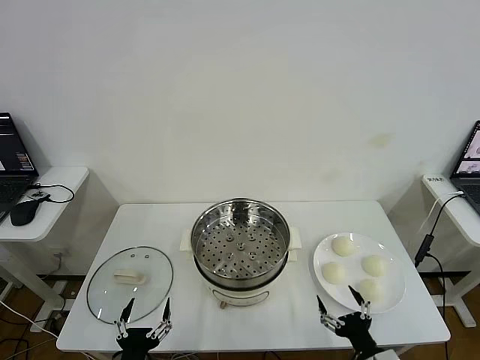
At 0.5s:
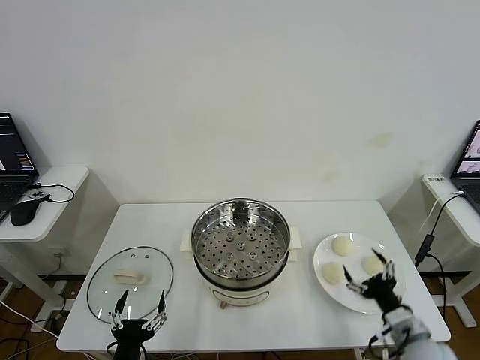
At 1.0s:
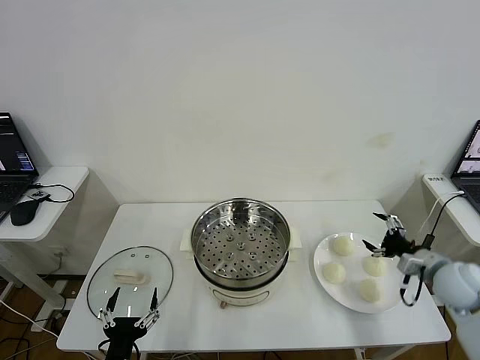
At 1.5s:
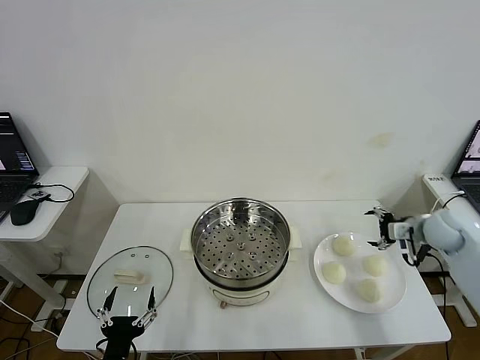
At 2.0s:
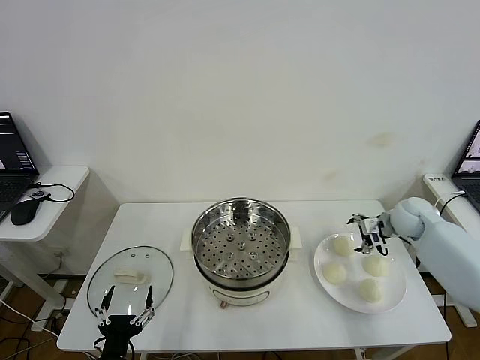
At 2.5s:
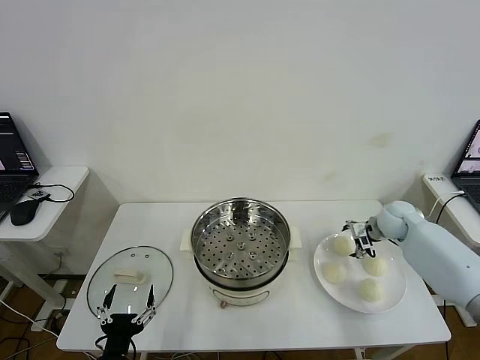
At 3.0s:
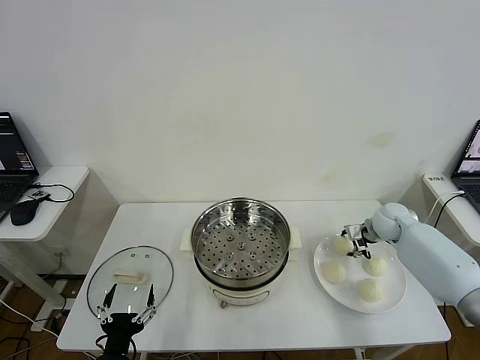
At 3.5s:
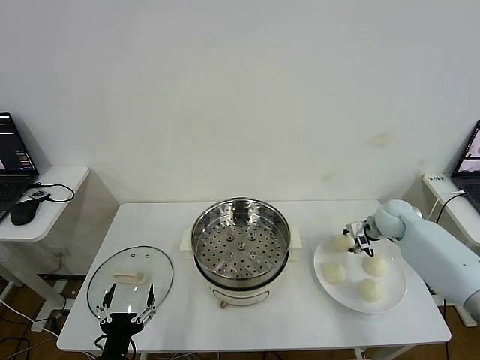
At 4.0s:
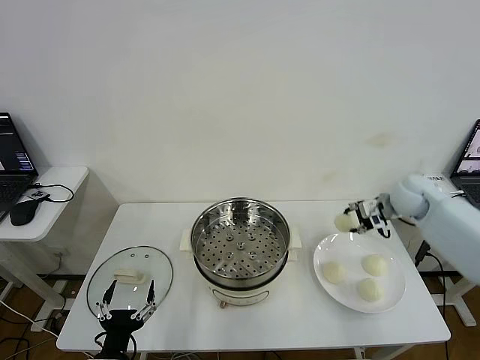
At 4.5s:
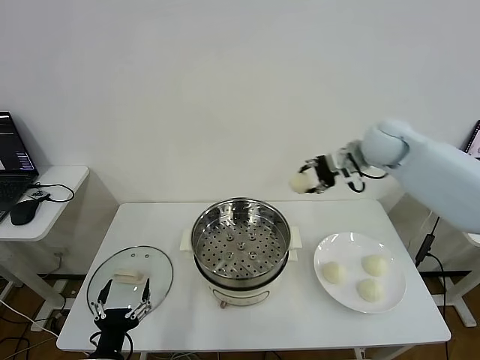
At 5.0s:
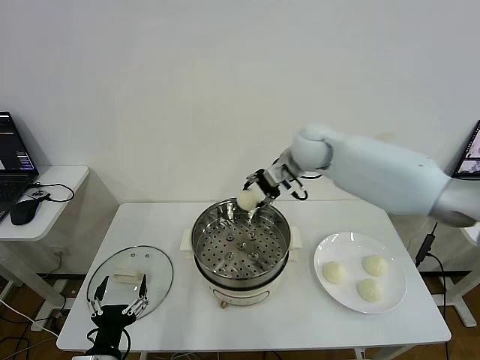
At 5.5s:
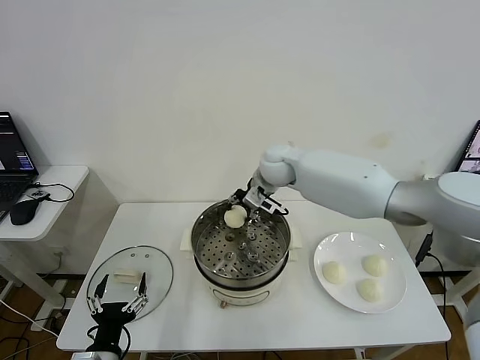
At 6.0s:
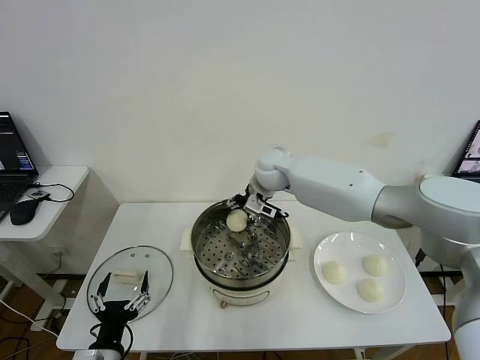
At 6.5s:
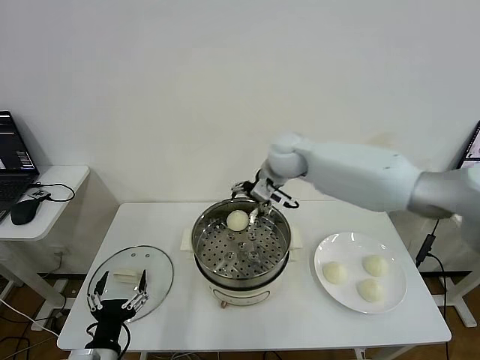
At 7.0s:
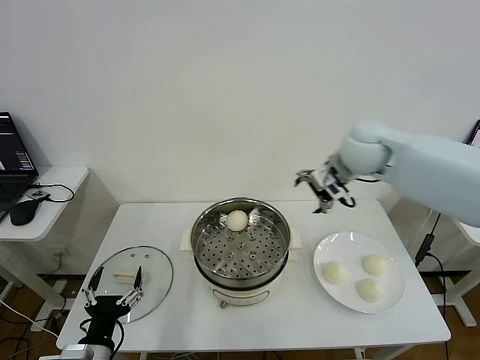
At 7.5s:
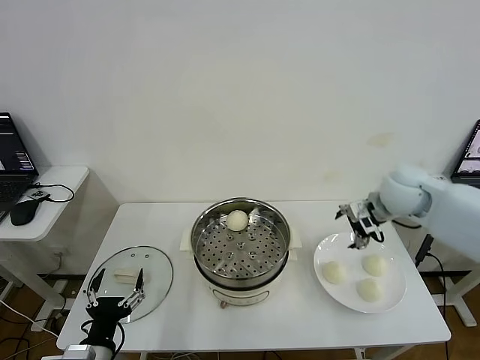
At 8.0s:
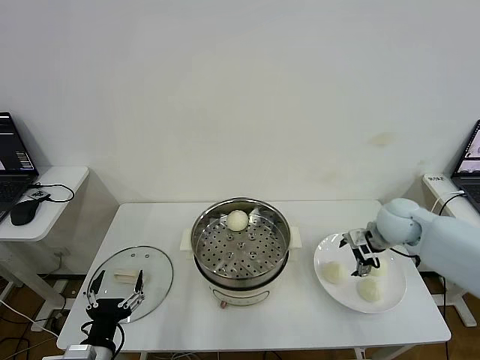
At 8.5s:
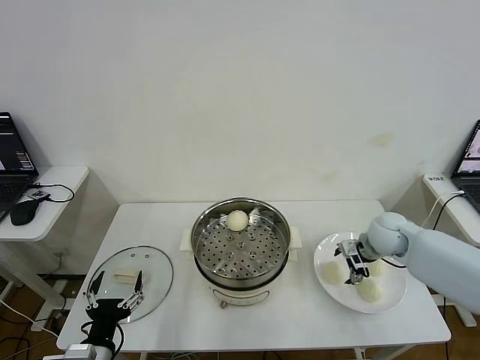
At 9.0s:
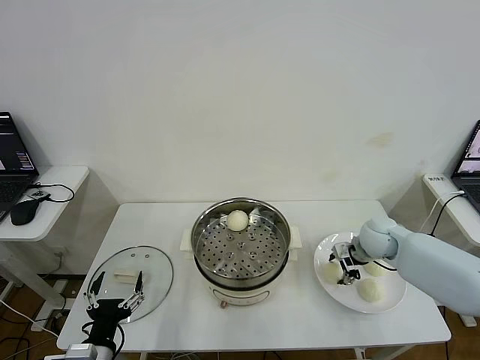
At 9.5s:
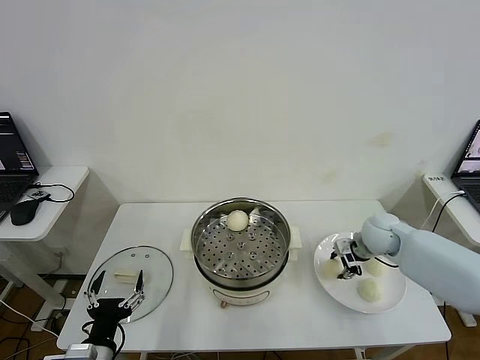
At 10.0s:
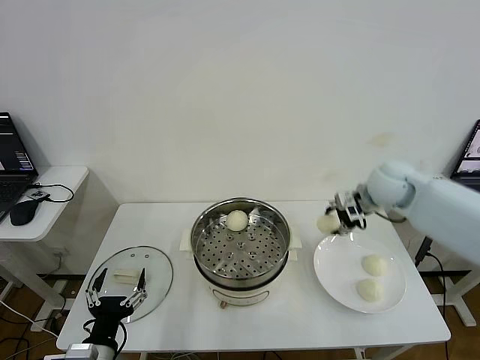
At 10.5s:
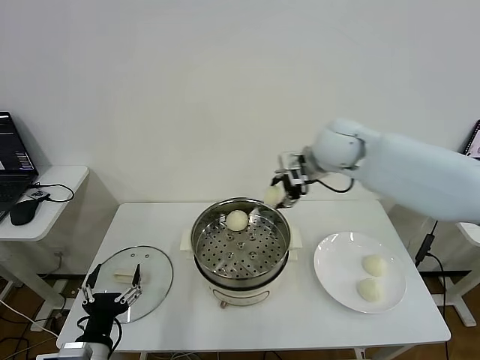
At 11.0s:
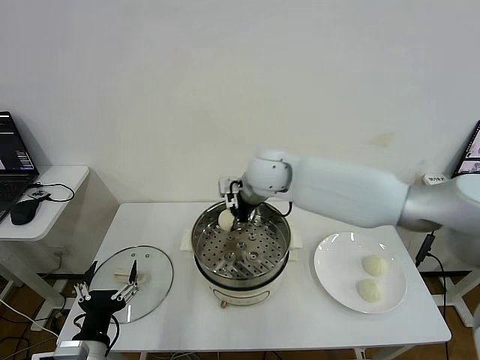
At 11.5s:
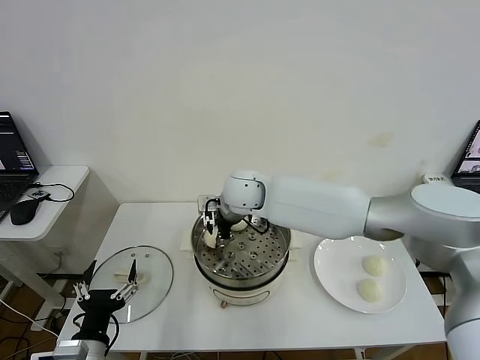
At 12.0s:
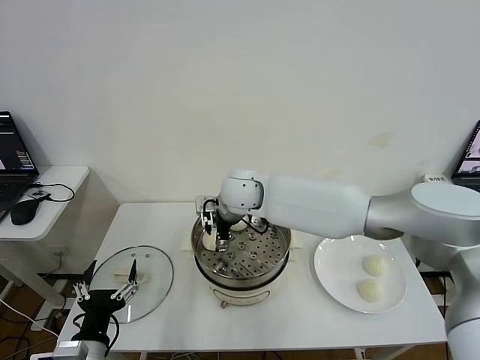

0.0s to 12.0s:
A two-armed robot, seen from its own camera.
Step, 0.0s to 3.0s: Grasp the baozi in the plate with right gripper.
Step, 3.5s to 6.0s: Place the baozi on the steamer with right gripper.
Step, 6.5s to 9.0s: Grasp the baozi in the plate with right gripper.
Step, 9.5s to 12.0s: Place the baozi on the steamer with right gripper.
2.0s to 4.0s: The right gripper moves upward, roughly 10 cm, and closes up.
4.0s to 6.0s: The right gripper moves to the left, approximately 30 cm, and opens.
6.0s to 8.0s: The right gripper travels to the right and backward by some 30 cm, and opens its fingers.
8.0s to 10.0s: The right gripper is displaced upward by roughly 10 cm, and closes its fingers.
10.0s to 12.0s: The right gripper heads to the left, covering some 30 cm, and opens up.

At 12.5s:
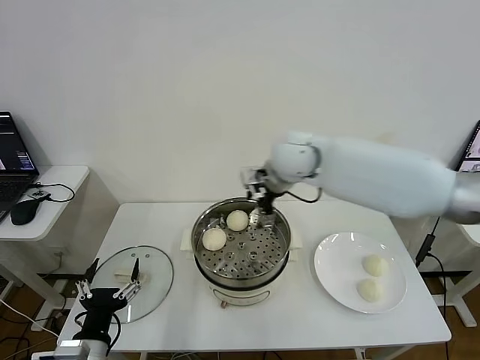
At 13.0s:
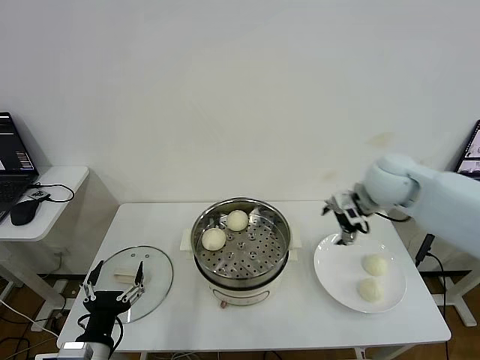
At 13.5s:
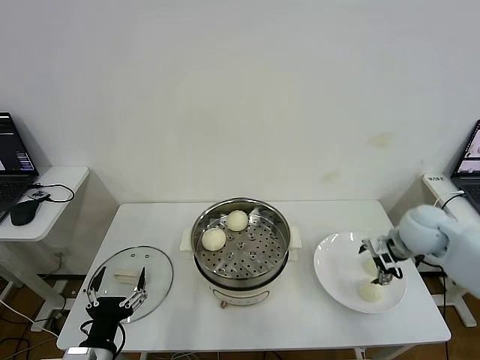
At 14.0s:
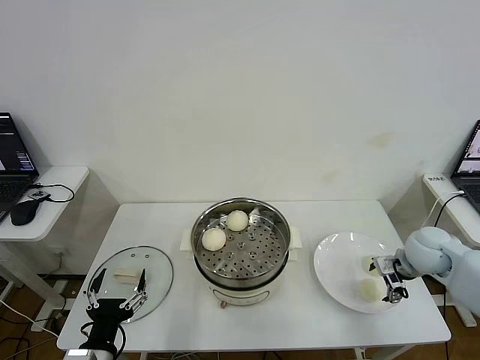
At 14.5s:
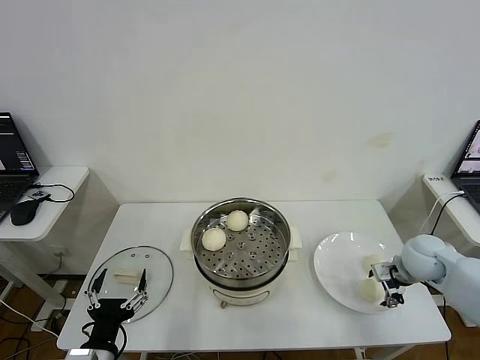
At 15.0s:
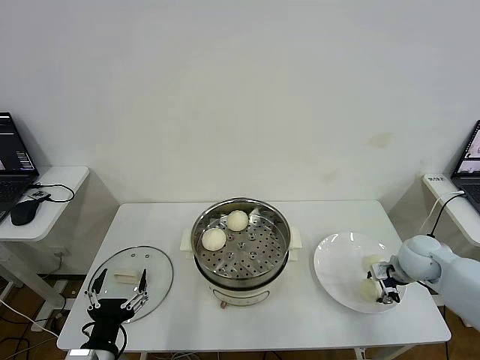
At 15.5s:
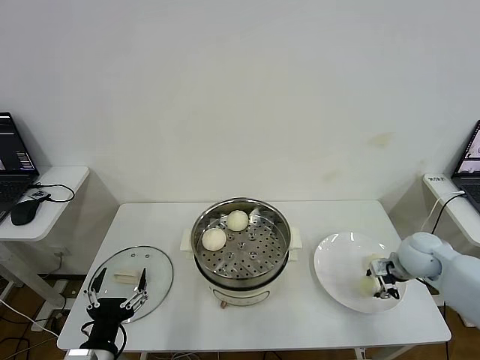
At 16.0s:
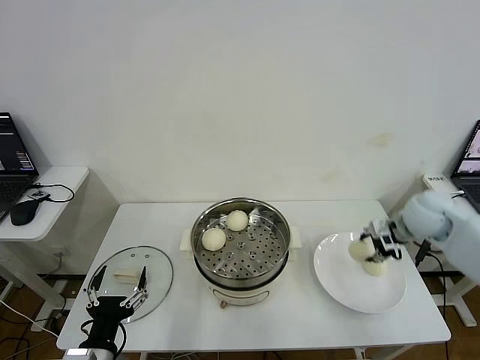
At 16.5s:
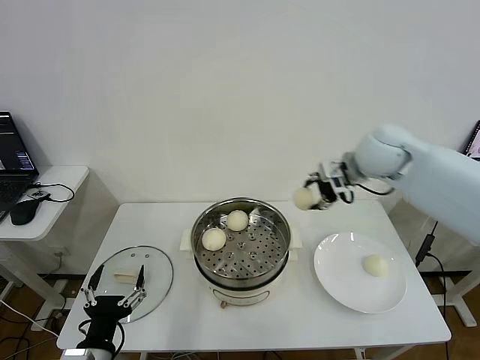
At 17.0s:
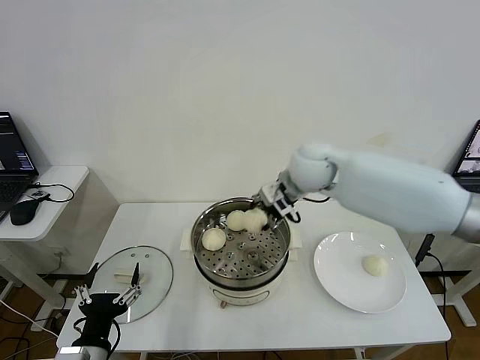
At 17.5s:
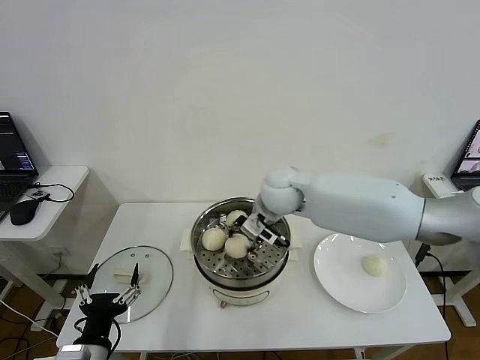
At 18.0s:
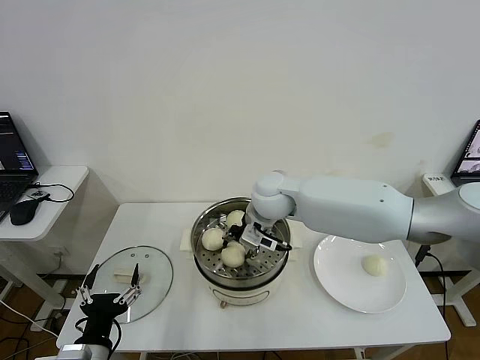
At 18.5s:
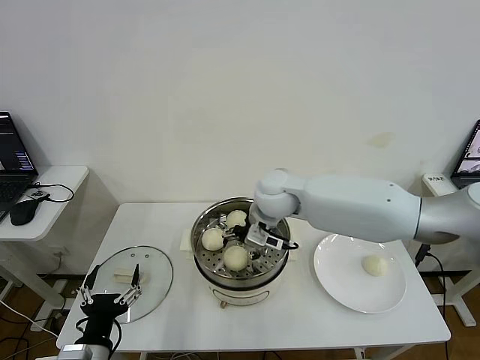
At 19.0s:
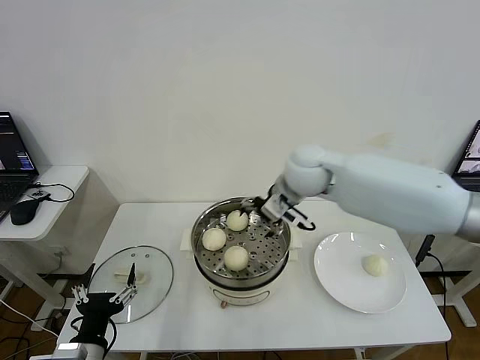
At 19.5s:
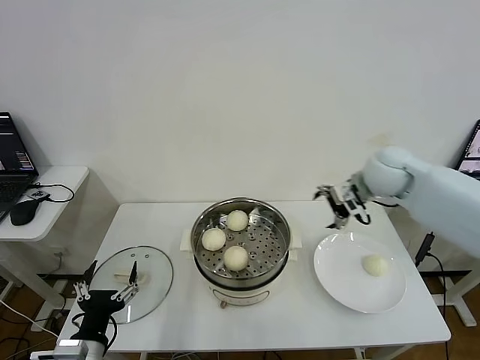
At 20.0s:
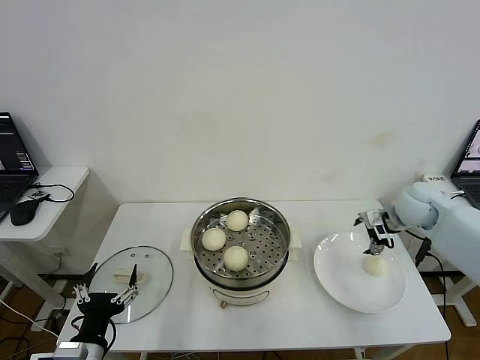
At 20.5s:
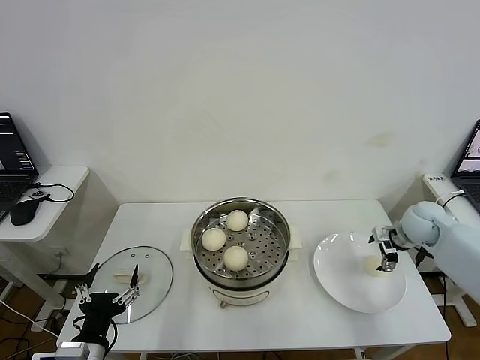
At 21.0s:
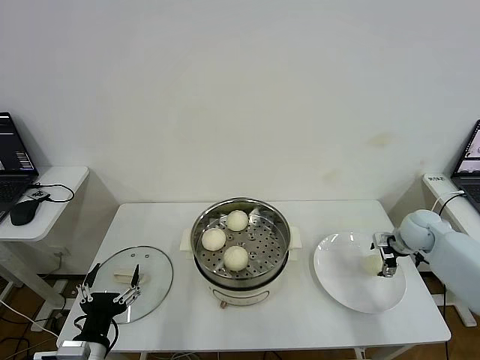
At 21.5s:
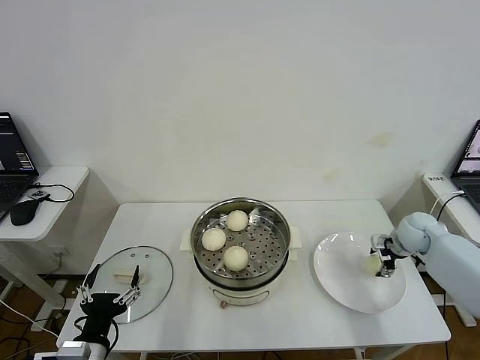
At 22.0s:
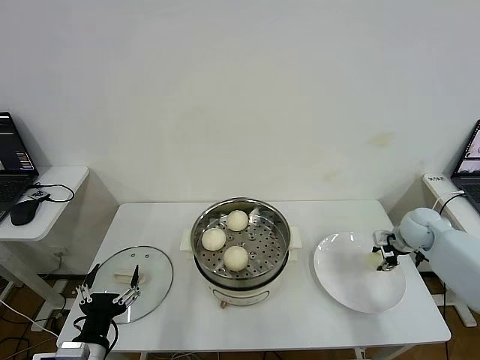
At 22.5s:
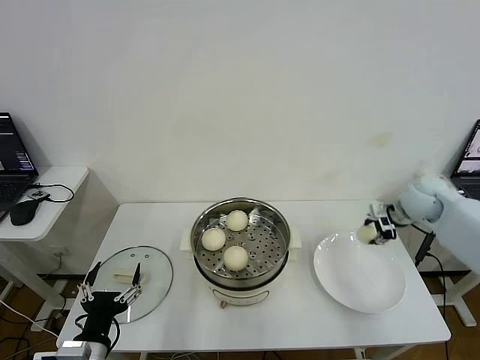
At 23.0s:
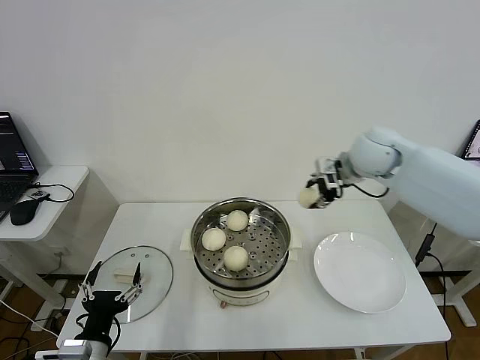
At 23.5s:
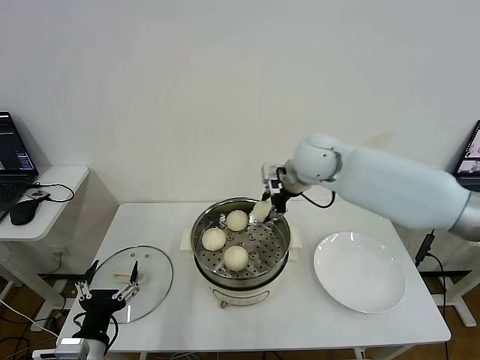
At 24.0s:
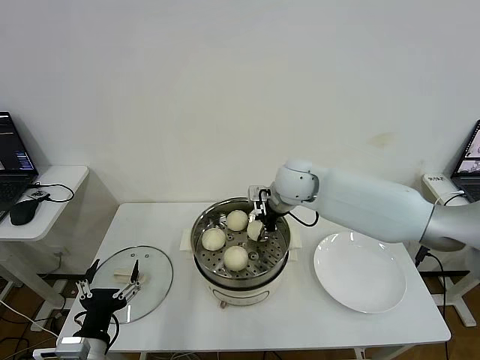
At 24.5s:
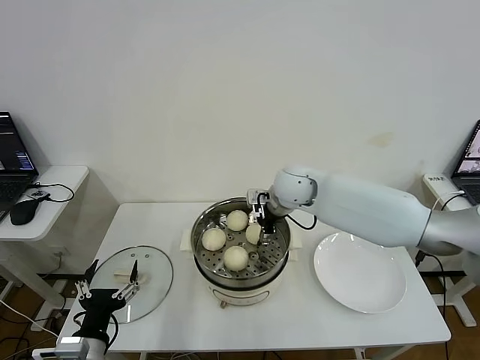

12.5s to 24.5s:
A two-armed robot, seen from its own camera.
Step, 12.5s to 15.0s: Grasp the baozi in the plate with right gripper.
Step, 16.0s to 18.0s: Place the baozi on the steamer with right gripper.
Step, 19.0s to 21.5s: Grasp the baozi in the plate with right gripper.
12.5s to 14.5s: The right gripper is displaced to the right and downward by some 35 cm.
14.5s to 16.5s: The right gripper shifts roughly 30 cm upward, to the left and forward, and closes its fingers.
16.5s to 18.5s: The right gripper is displaced to the left and downward by roughly 20 cm, and opens up.
18.5s to 20.5s: The right gripper is displaced to the right by some 35 cm.
20.5s to 22.5s: The right gripper goes some 5 cm upward, and closes up.
22.5s to 24.5s: The right gripper is displaced to the left by about 30 cm, and opens.

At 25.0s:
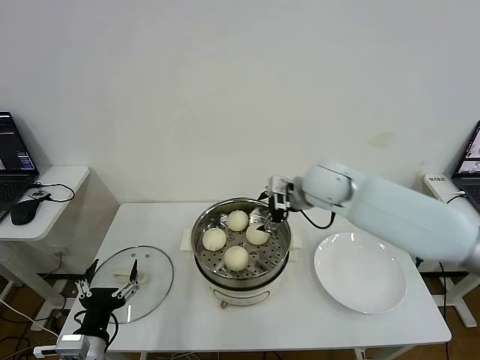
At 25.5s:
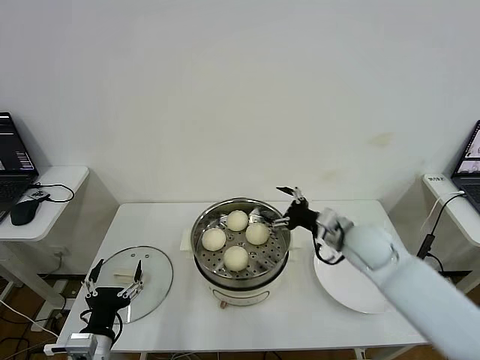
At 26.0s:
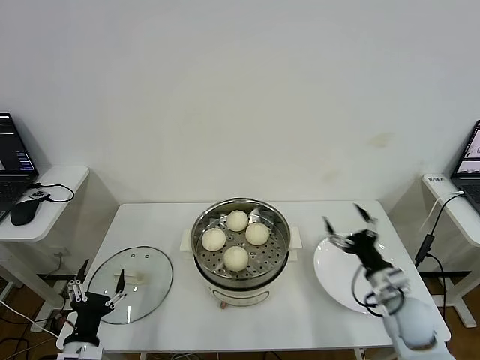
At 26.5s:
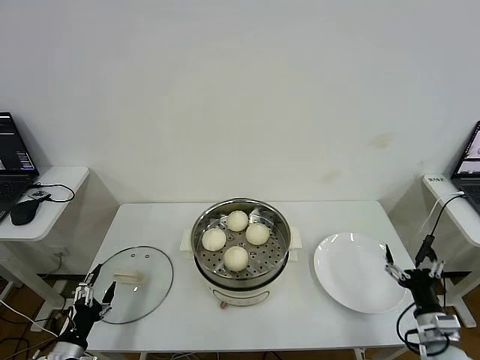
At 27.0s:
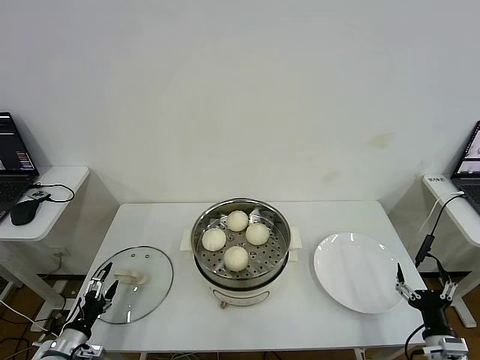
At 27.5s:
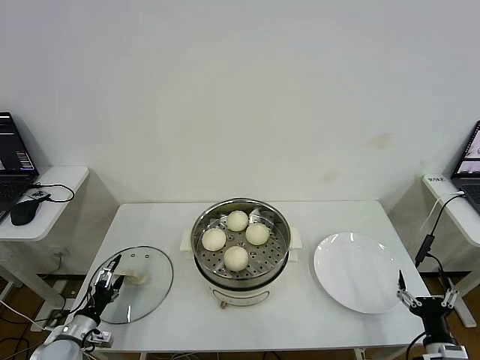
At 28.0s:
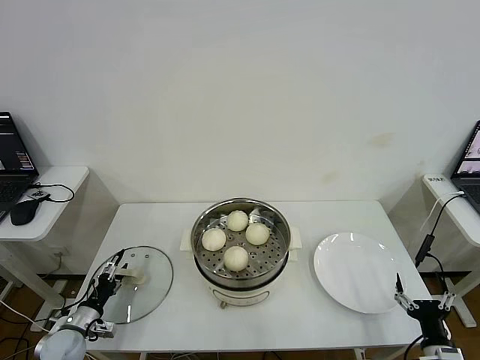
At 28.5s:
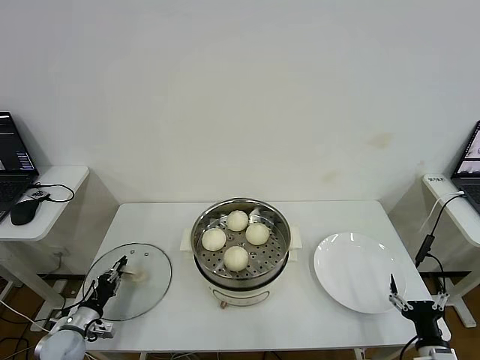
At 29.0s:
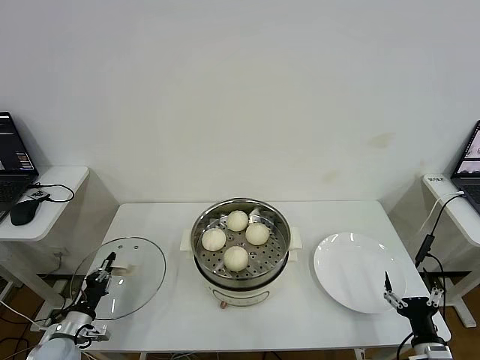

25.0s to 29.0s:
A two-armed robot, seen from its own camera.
Step, 25.0s to 28.5s: Grasp the pot lid with left gripper.
25.0s to 27.0s: The left gripper goes approximately 20 cm to the left and downward. The right gripper shifts some 50 cm backward, downward and to the right.
27.0s to 29.0s: The left gripper closes its fingers.
